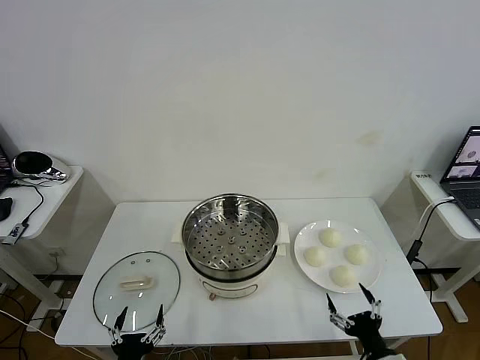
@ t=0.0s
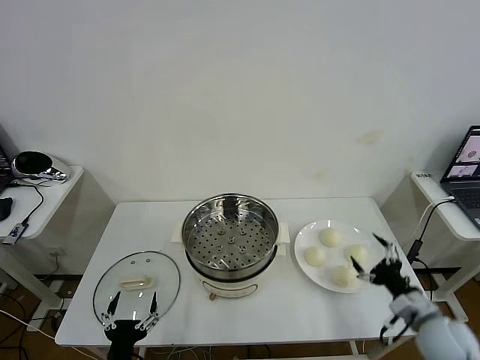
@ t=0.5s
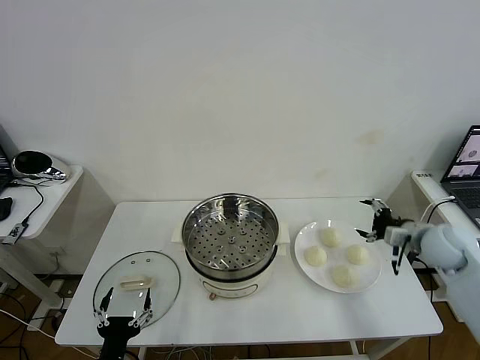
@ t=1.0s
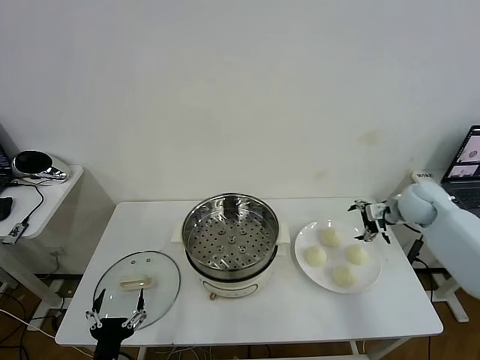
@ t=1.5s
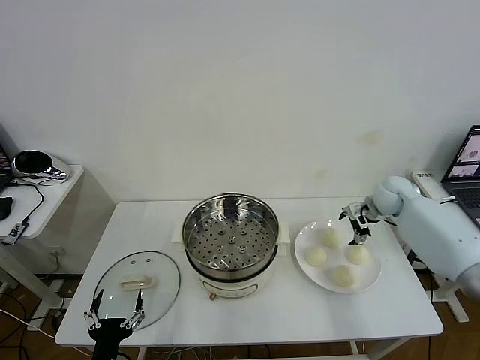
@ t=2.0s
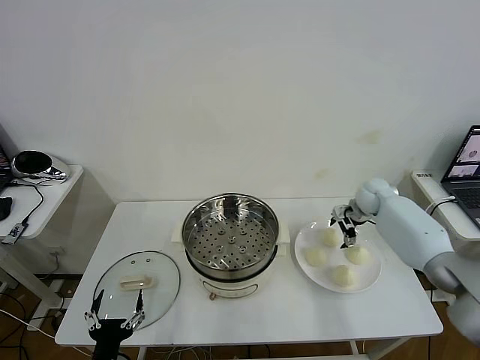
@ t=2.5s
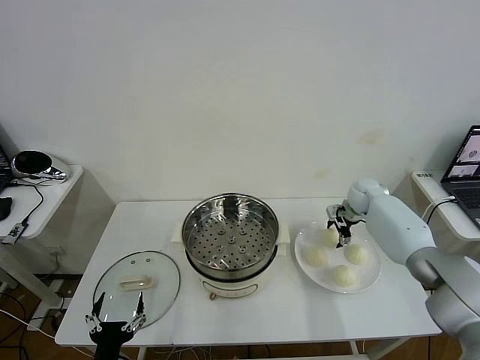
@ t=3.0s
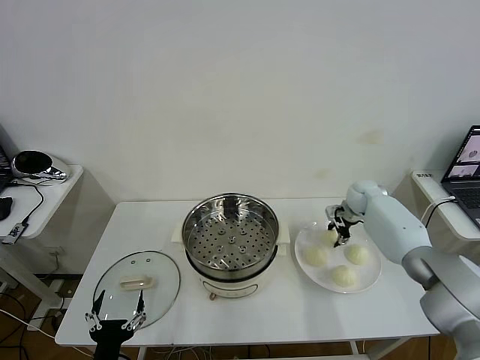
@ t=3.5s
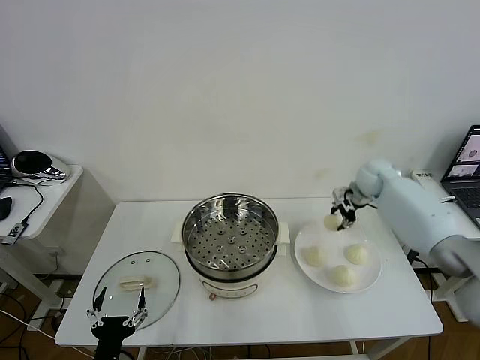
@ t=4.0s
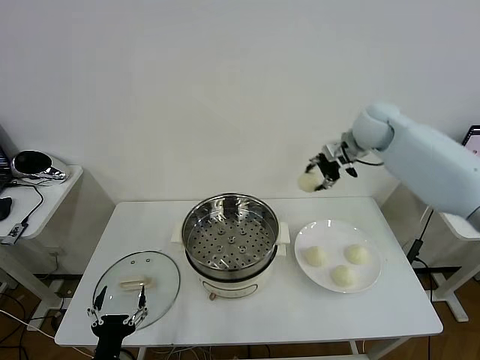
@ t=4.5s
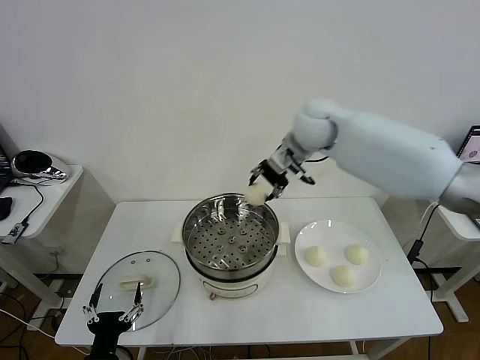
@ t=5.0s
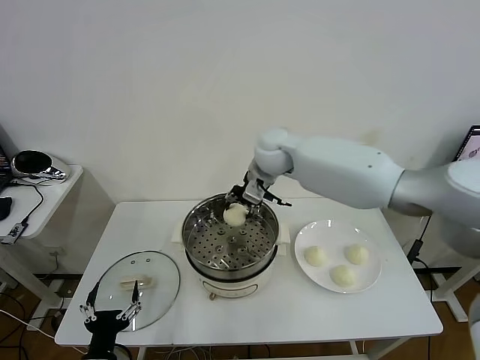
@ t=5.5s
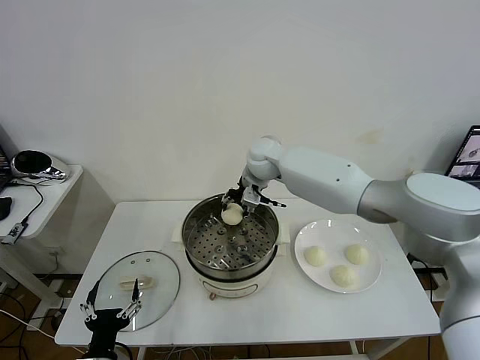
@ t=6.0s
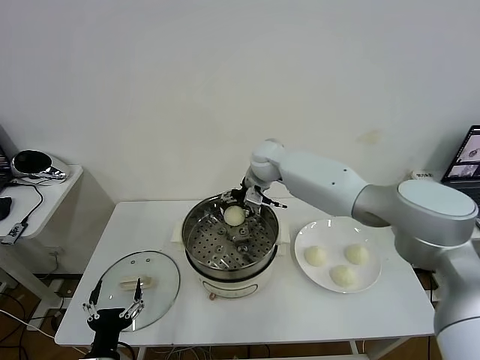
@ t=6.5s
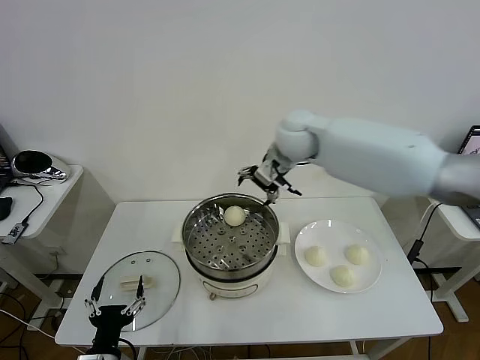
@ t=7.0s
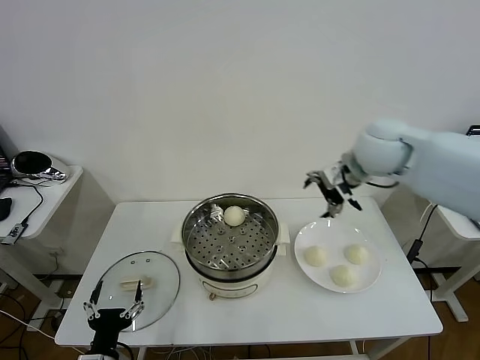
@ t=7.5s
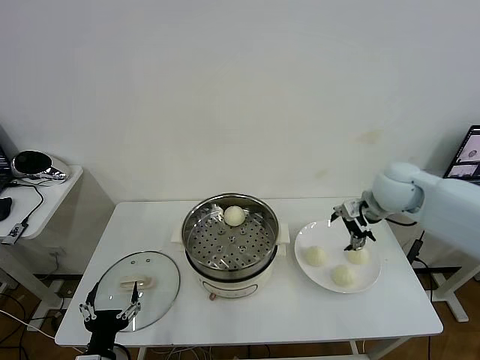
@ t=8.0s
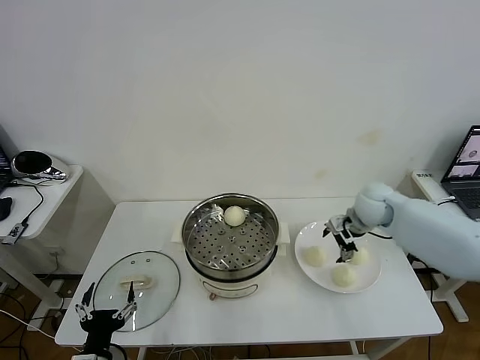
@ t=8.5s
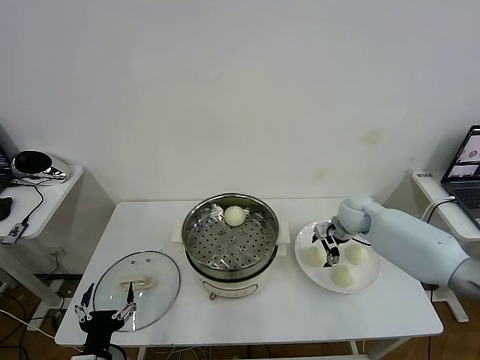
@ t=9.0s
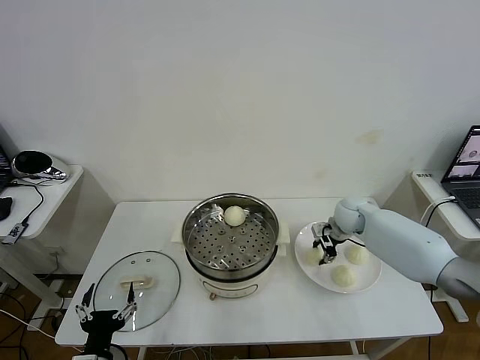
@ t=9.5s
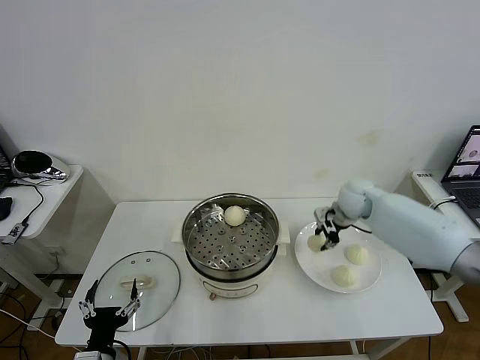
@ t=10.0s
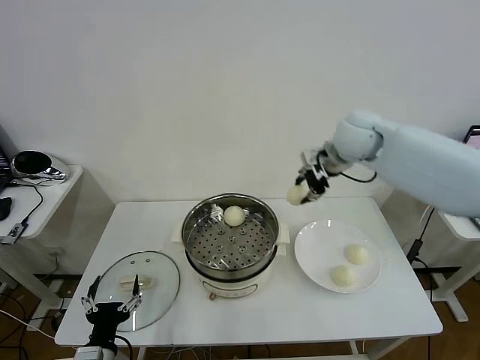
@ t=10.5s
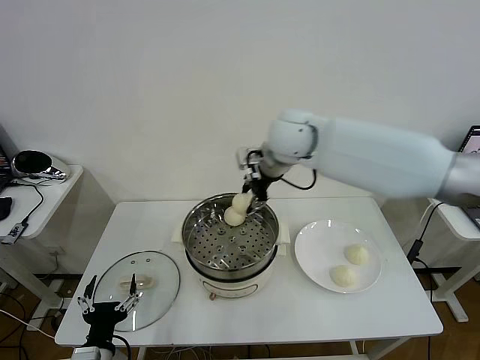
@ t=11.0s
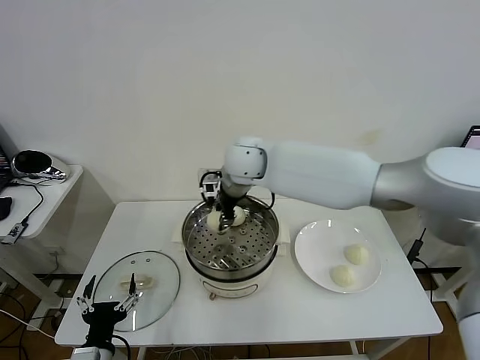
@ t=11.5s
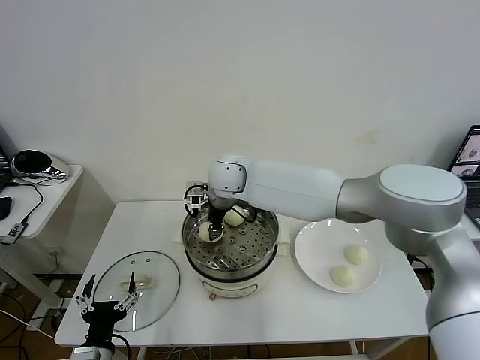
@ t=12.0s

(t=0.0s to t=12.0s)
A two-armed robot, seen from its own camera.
Task of the whole recording: take steamed baozi put them in steamer then cover it.
Step, t=0.0s - t=3.0s: Grasp the baozi in the plate with right gripper.
Step, t=3.5s - t=6.0s: Place the baozi on the steamer with right gripper.
Step, t=6.5s - t=9.5s: Grasp the baozi in the plate with right gripper.
t=2.0s - t=4.0s: The right gripper travels upward by approximately 5 cm, and closes its fingers.
t=4.0s - t=6.0s: The right gripper moves to the left, some 30 cm.
t=6.0s - t=8.0s: The right gripper is displaced to the right and backward by roughly 30 cm, and opens its fingers.
t=8.0s - t=10.0s: The right gripper is displaced forward and downward by about 10 cm, and closes.
t=10.0s - t=12.0s: The right gripper goes roughly 30 cm to the left.

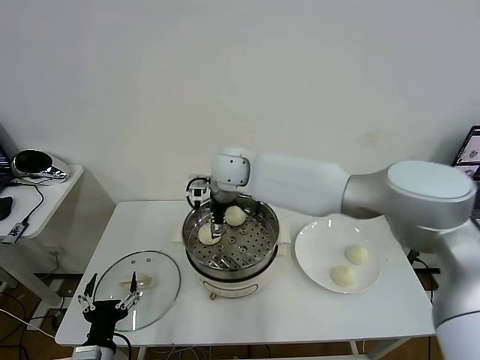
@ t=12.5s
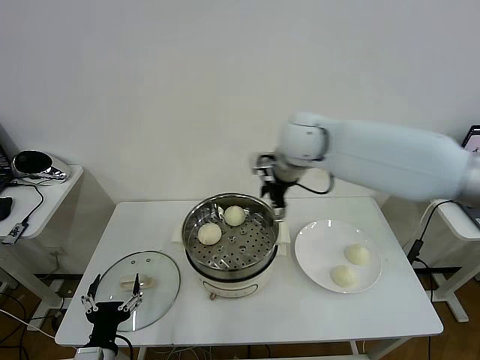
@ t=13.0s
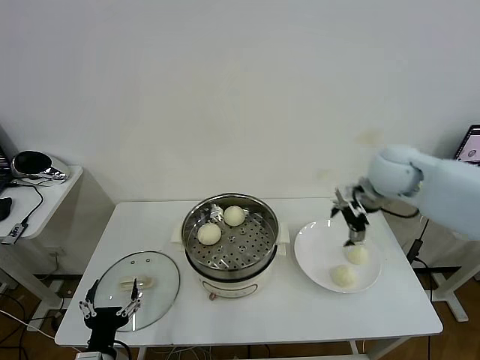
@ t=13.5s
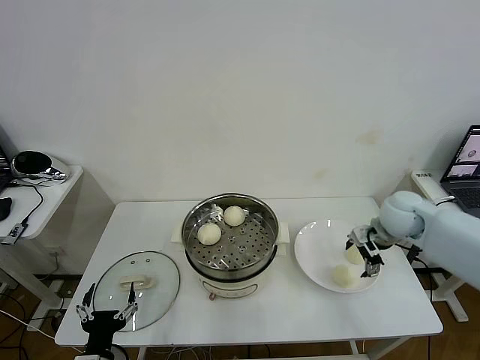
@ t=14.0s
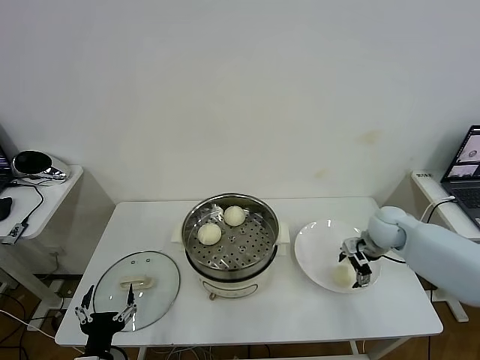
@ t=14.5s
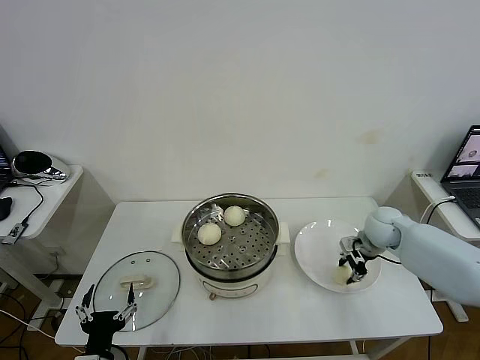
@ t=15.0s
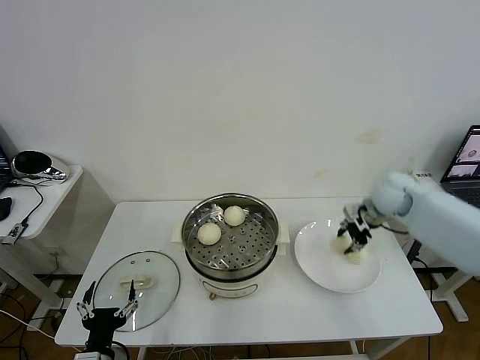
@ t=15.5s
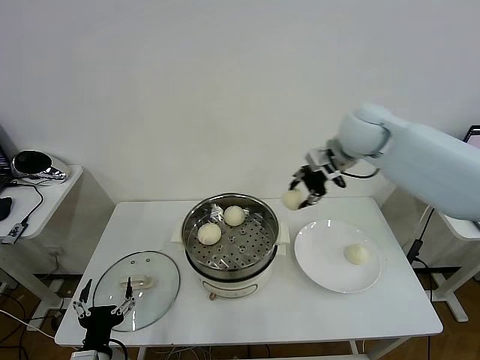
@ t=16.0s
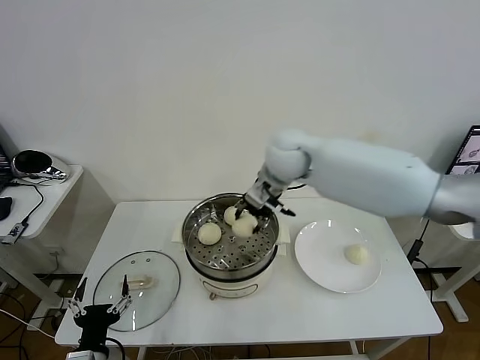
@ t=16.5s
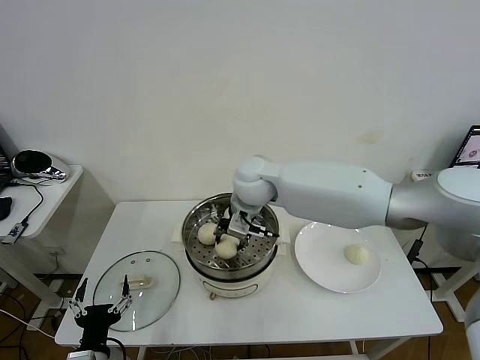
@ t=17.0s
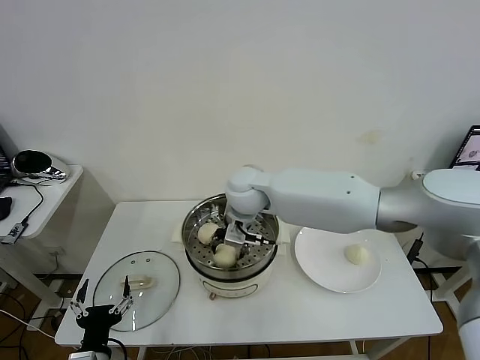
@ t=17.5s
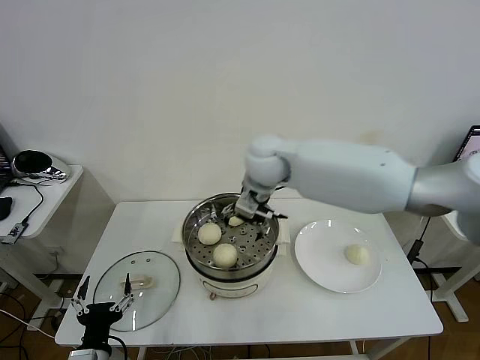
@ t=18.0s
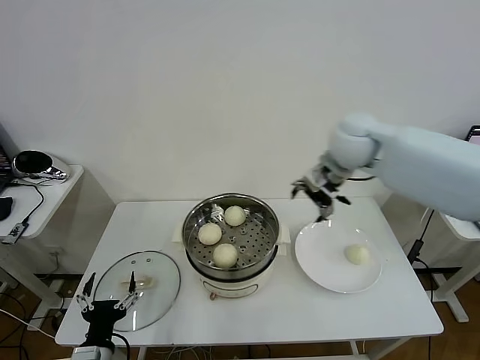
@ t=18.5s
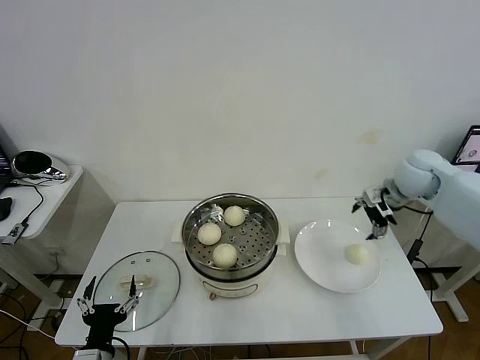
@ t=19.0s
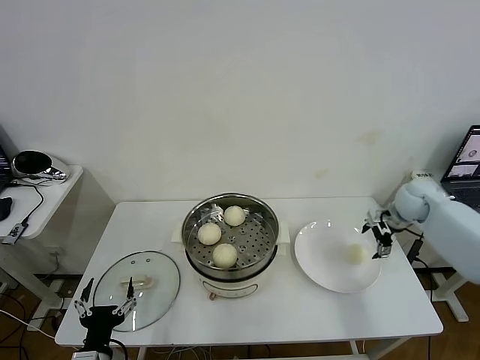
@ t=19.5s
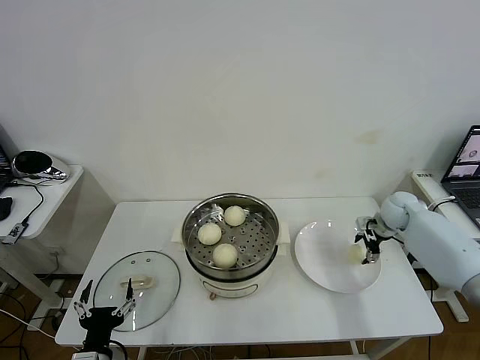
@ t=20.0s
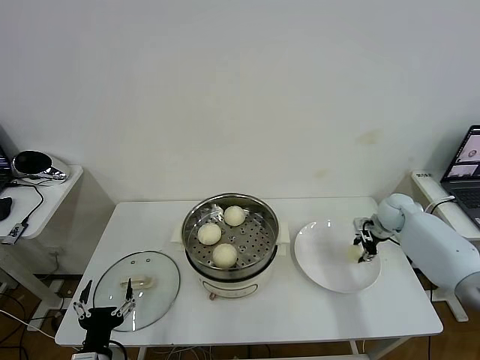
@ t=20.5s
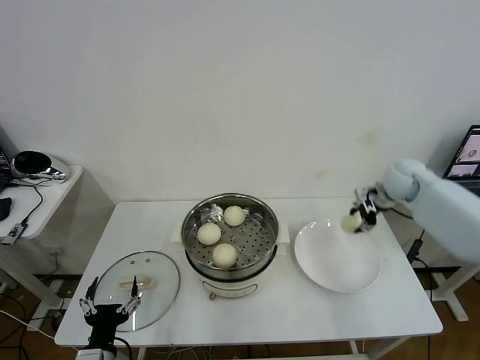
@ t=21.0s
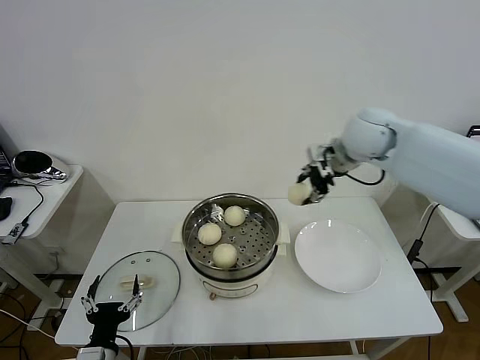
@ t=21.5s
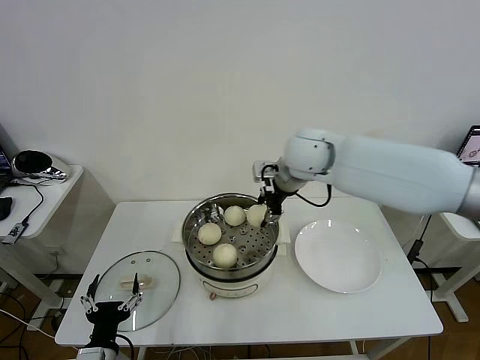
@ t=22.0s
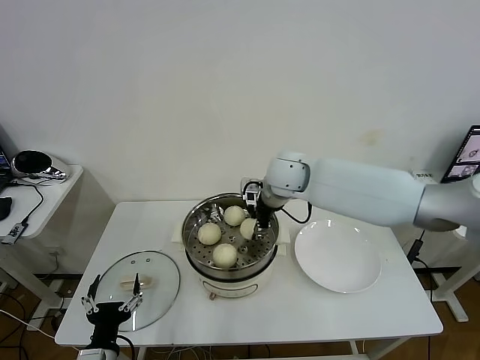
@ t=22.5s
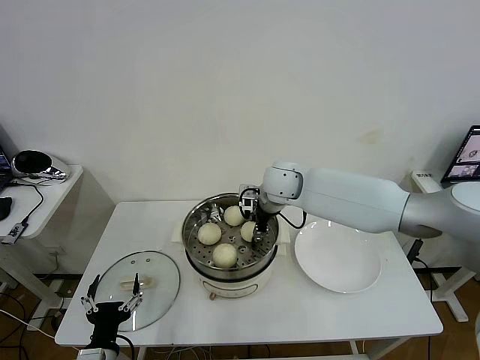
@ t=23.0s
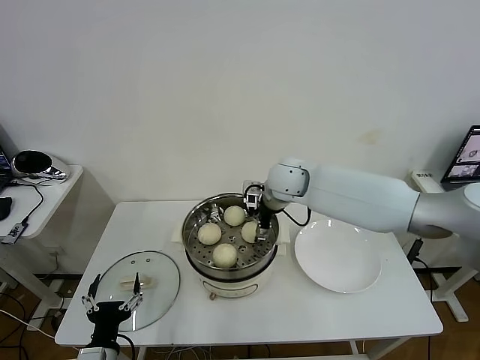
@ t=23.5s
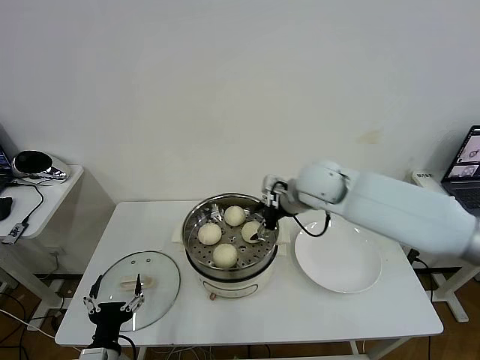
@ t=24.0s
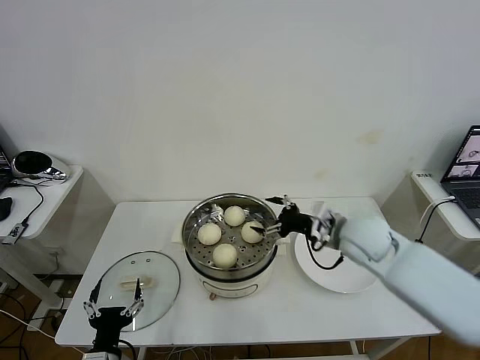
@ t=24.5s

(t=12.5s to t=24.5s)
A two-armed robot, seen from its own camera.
Task of the whole recording: take steamed baozi put them in steamer then cover it.
Step, t=13.0s - t=15.0s: Grasp the baozi in the plate with right gripper.
Step, t=15.5s - t=17.5s: Place the baozi on the steamer with right gripper.
Step, t=18.0s - t=20.0s: Grasp the baozi in the plate with right gripper.
Step, t=20.5s - t=23.5s: Place the baozi on the steamer with right gripper.
t=12.5s - t=14.5s: The right gripper travels to the right and downward by roughly 40 cm.
t=14.5s - t=16.5s: The right gripper goes roughly 35 cm to the left and upward, and closes.
t=16.5s - t=18.5s: The right gripper goes approximately 15 cm to the right, and opens up.
t=18.5s - t=20.5s: The right gripper travels downward and to the right by about 30 cm, and closes its fingers.
t=20.5s - t=22.5s: The right gripper travels to the left and upward by roughly 35 cm.
t=22.5s - t=24.5s: The right gripper travels to the right, backward and downward by roughly 20 cm, and opens its fingers.

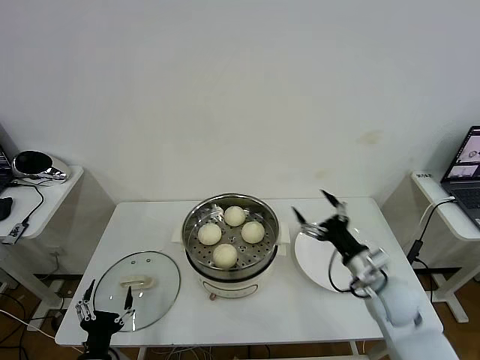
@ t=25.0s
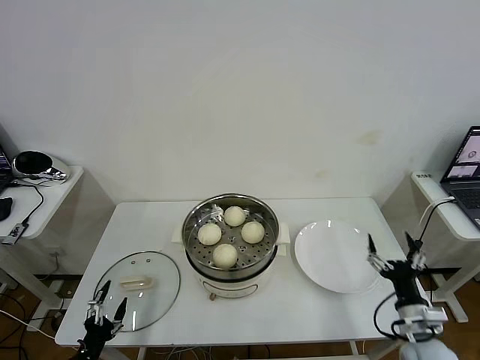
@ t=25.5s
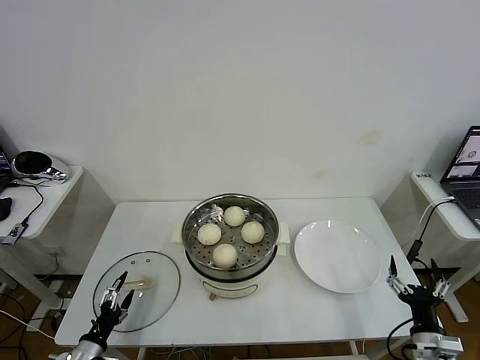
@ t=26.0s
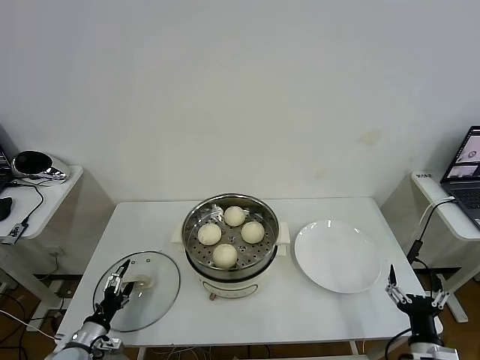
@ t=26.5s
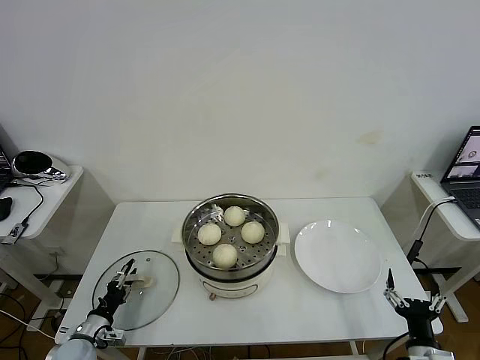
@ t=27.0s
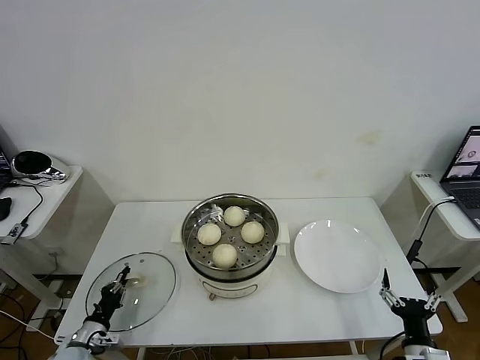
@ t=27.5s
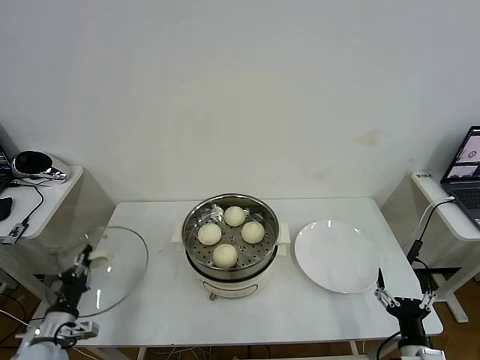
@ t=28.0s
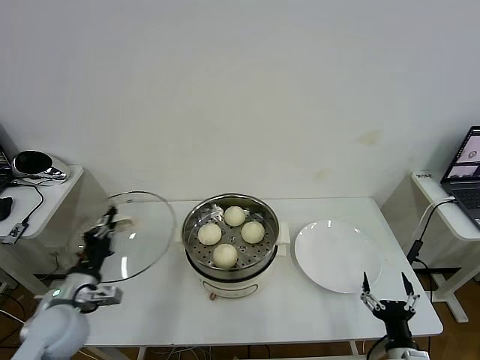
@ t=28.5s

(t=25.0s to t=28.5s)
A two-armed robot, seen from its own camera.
Task of the whole recording: take steamed baozi put them in steamer then cover it.
Step, t=25.0s - t=27.5s: Grasp the pot lid with left gripper.
t=25.0s - t=27.0s: The left gripper heads forward, to the left and downward, covering some 20 cm, and closes its fingers; the right gripper travels backward and downward by some 20 cm.
t=27.0s - t=28.5s: The left gripper is displaced upward by some 20 cm, and closes.
